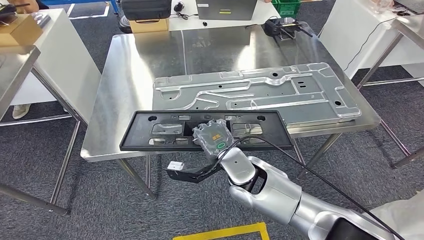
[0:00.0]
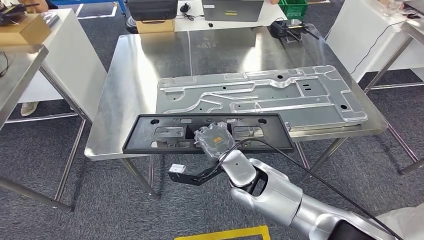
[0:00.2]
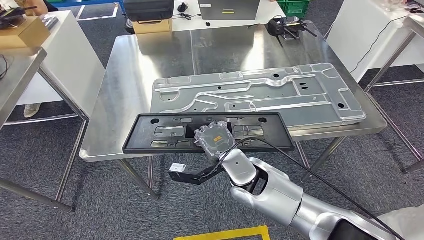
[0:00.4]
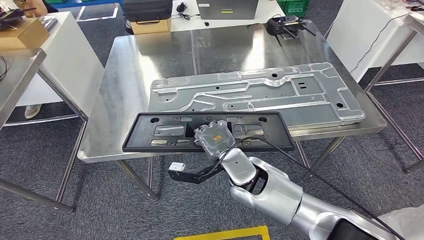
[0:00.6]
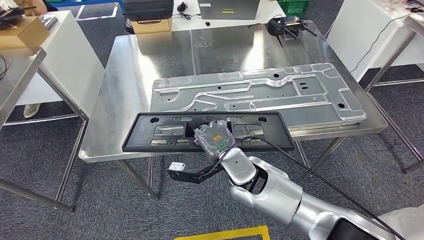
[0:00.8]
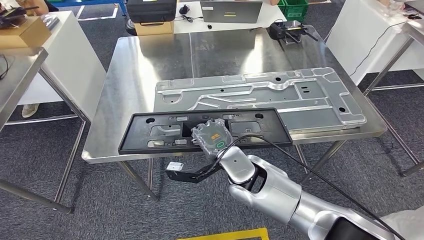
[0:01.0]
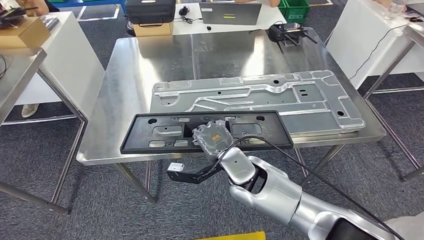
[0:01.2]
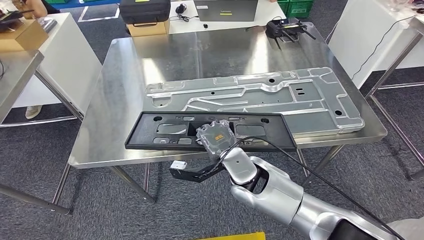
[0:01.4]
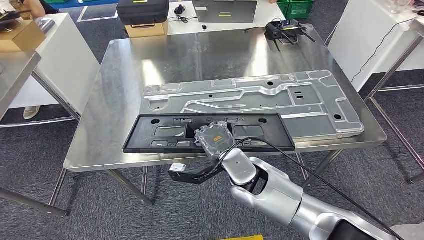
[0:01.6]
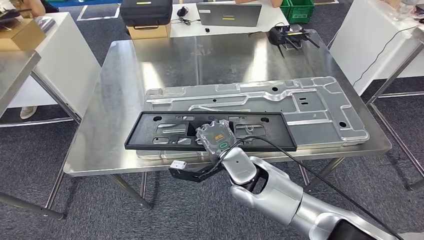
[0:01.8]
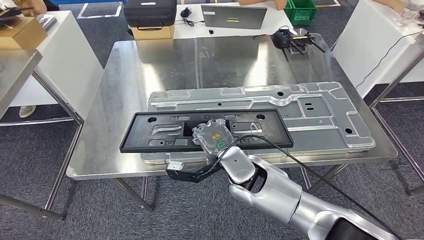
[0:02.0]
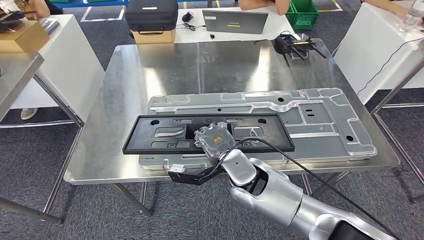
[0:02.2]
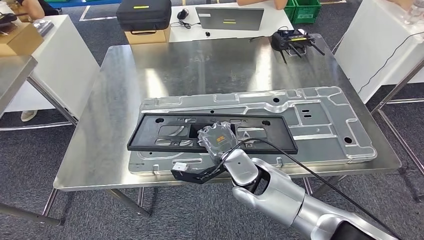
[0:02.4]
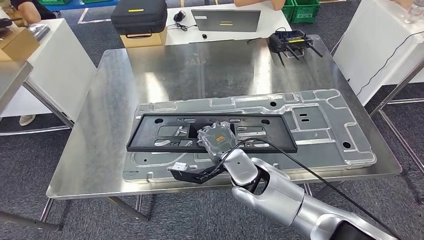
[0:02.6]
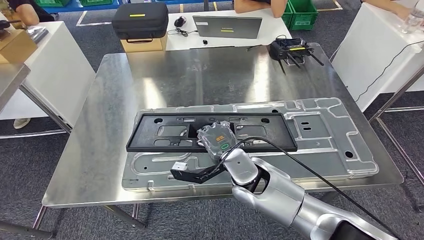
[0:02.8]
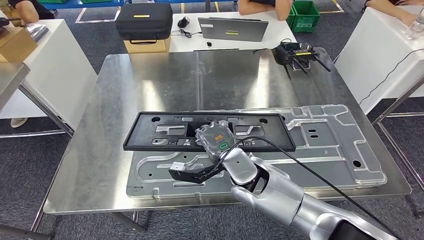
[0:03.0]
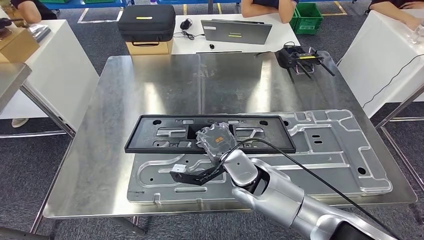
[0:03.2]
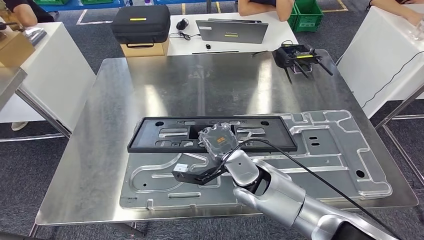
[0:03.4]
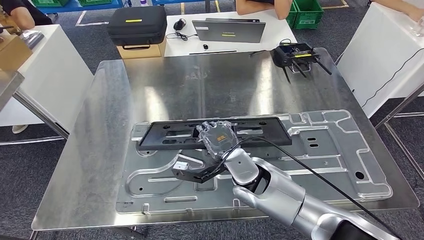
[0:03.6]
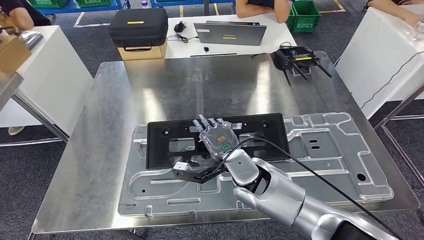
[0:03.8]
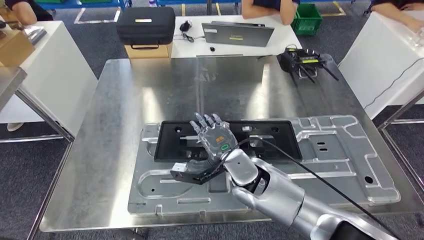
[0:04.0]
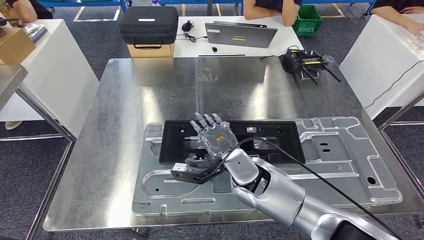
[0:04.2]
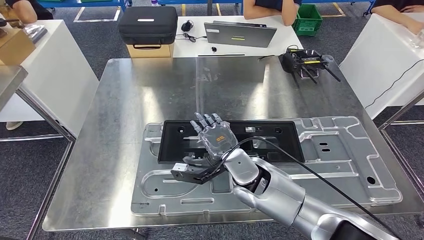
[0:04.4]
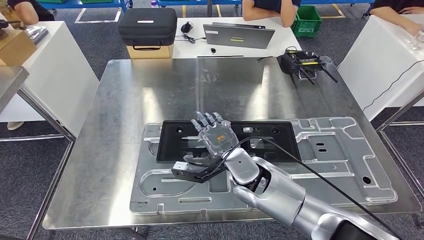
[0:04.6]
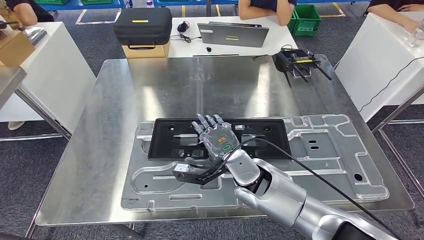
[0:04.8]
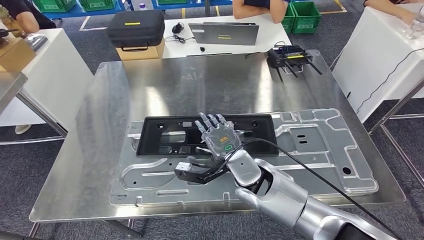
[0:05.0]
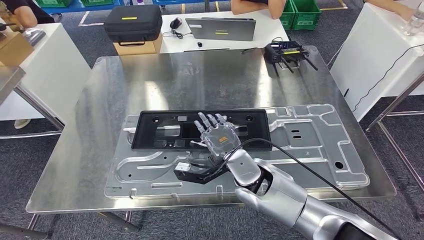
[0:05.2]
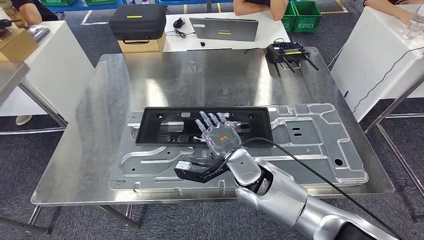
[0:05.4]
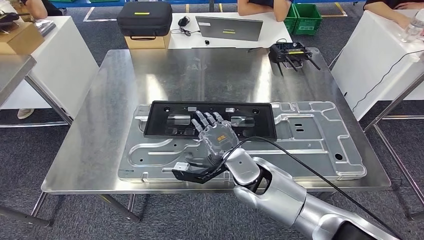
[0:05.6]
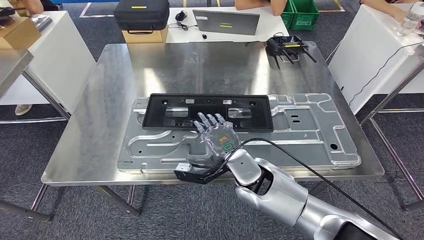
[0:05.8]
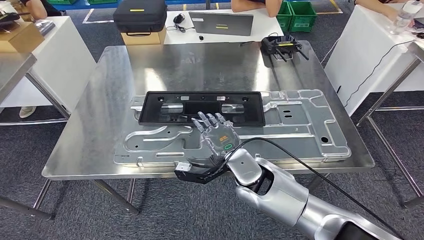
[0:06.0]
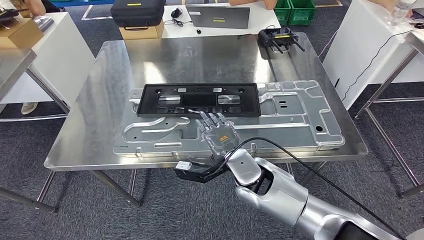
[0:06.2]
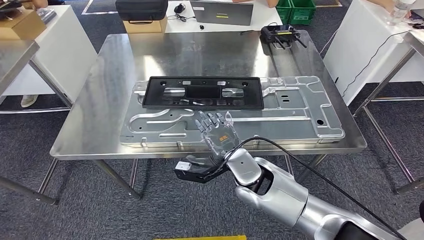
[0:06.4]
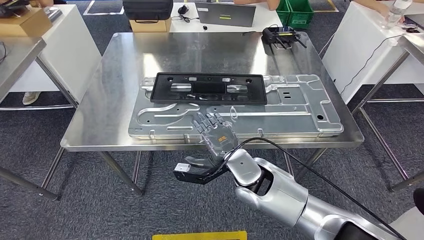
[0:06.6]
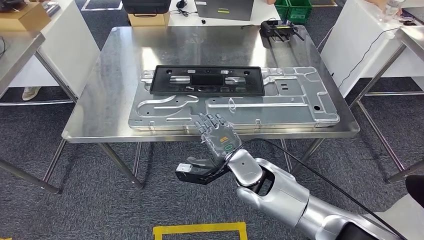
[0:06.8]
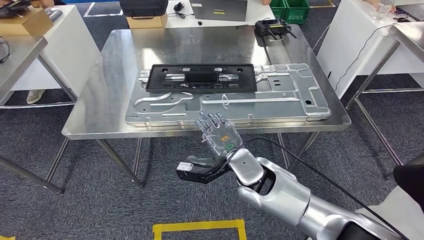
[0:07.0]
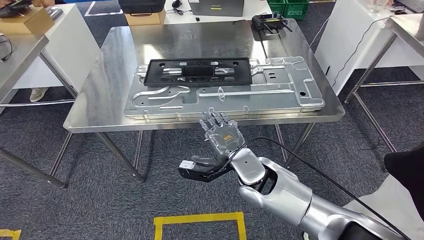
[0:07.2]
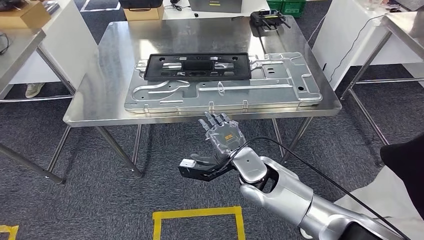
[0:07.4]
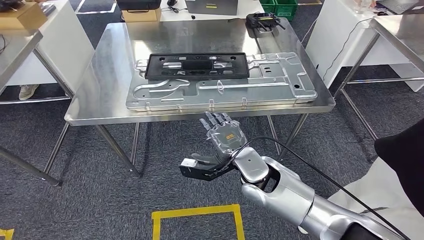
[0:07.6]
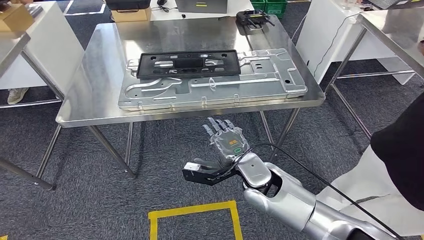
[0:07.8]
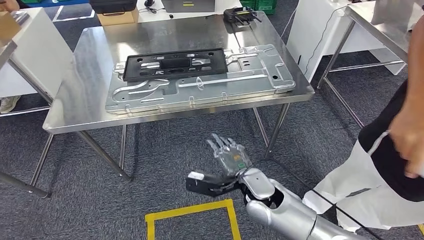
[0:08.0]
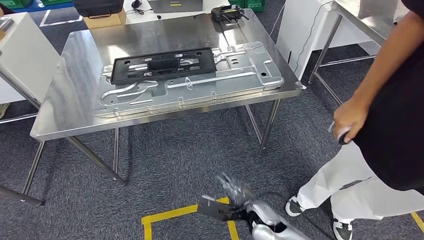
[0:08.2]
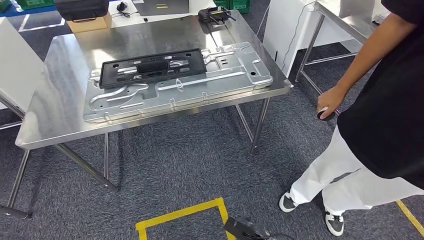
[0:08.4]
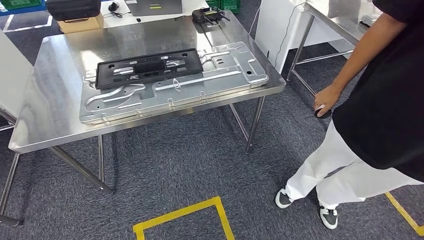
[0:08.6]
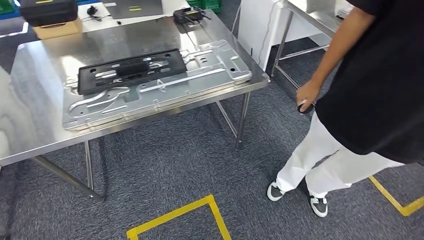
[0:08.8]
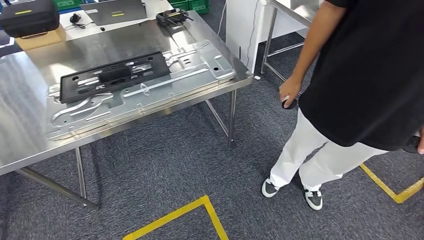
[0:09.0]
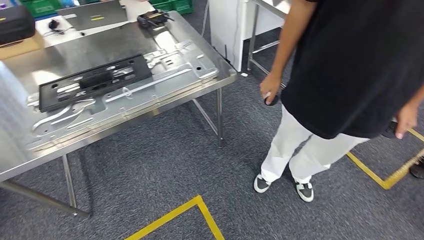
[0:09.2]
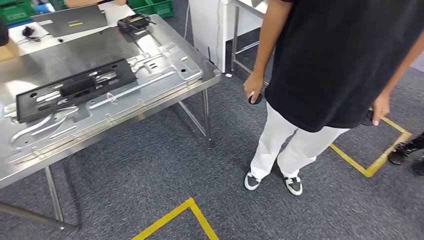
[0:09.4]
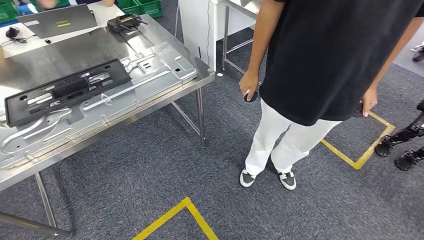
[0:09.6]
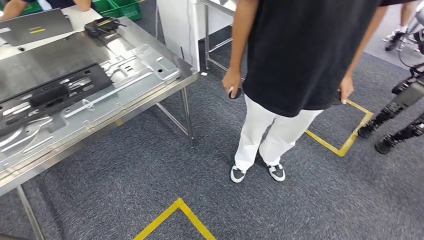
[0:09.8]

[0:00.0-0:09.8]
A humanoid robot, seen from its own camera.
Step, 0:00.2 to 0:04.8: Insert the large material into the corresponding slot on the workbench.

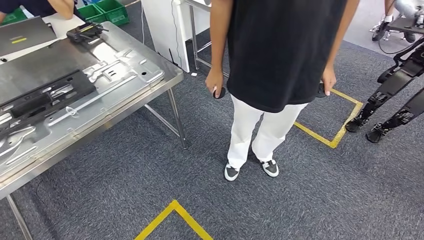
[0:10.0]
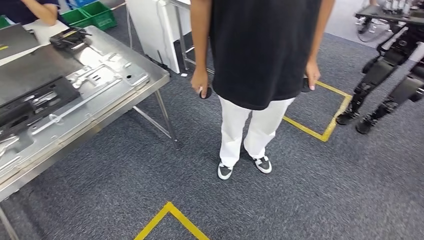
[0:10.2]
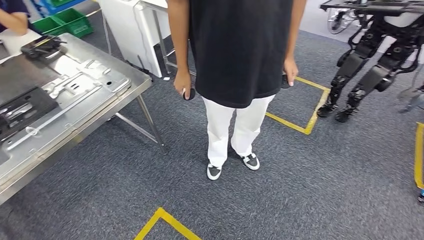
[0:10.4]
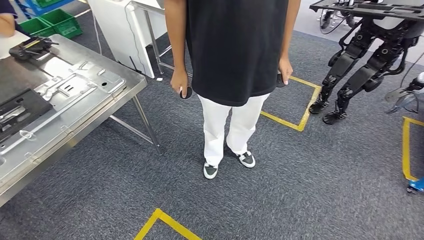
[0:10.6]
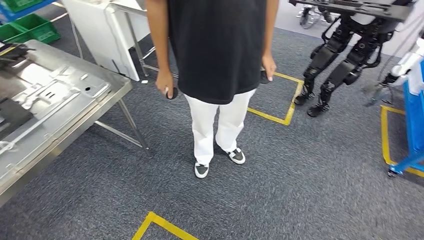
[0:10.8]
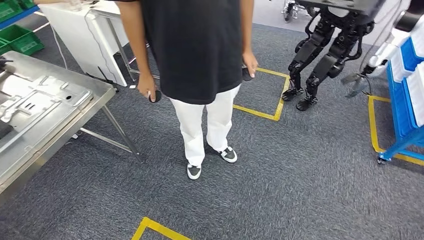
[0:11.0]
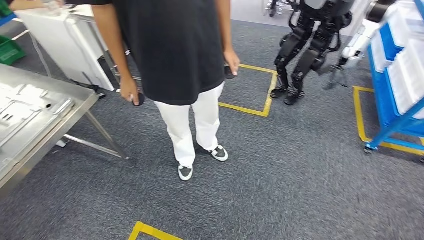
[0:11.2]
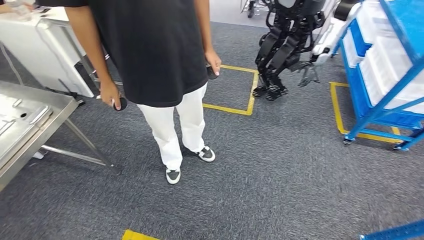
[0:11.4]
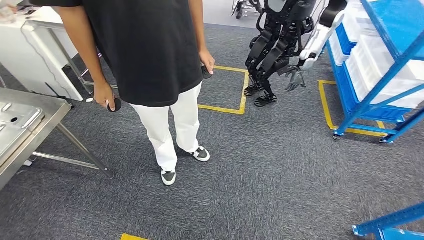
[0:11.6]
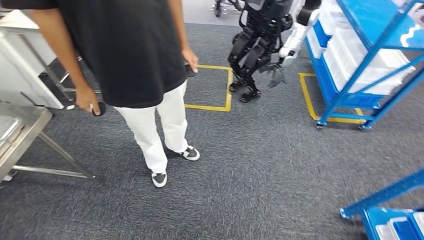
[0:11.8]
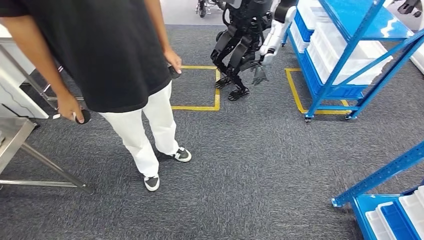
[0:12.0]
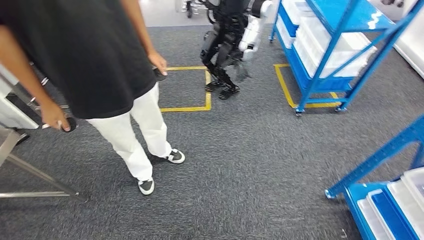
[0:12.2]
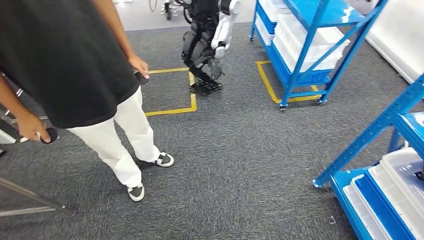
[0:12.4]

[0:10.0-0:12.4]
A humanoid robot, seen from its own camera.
Step, 0:10.0 to 0:12.4: Move to the initial position of the shelf.
